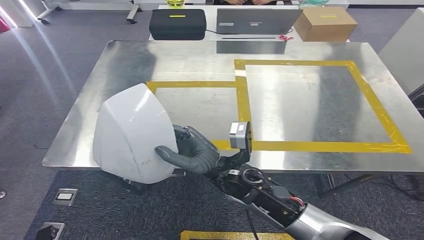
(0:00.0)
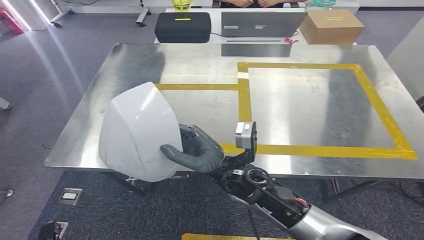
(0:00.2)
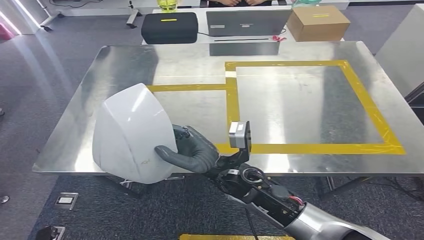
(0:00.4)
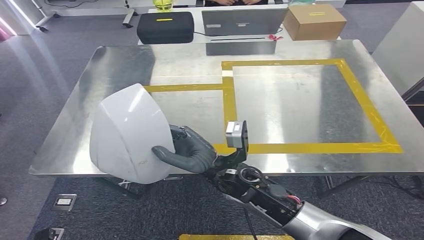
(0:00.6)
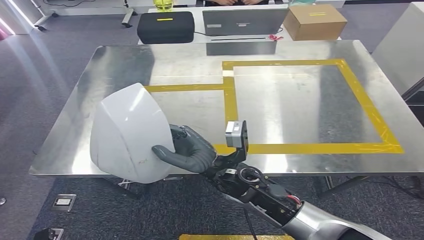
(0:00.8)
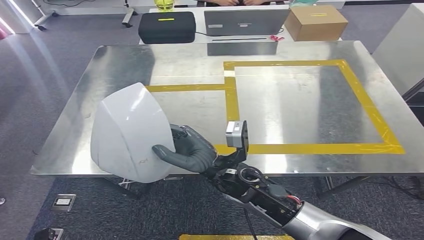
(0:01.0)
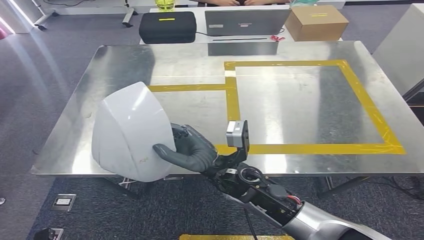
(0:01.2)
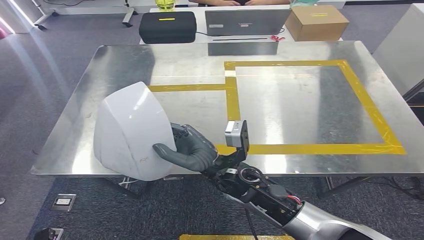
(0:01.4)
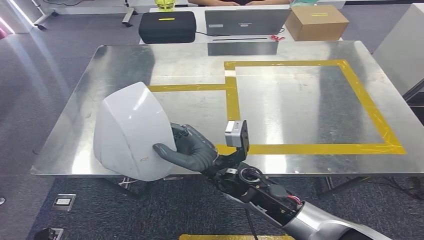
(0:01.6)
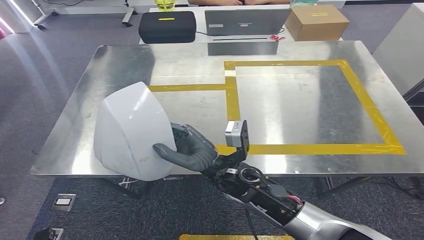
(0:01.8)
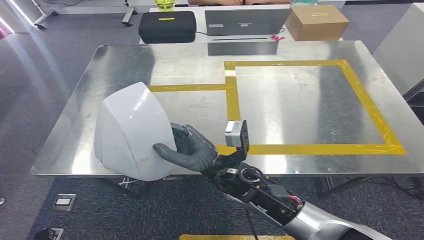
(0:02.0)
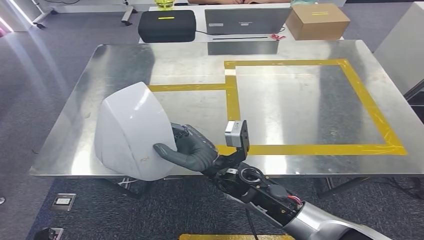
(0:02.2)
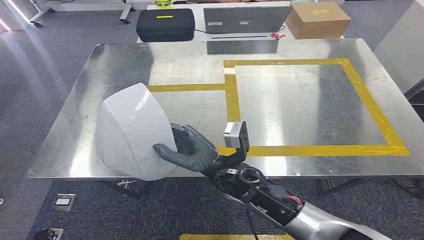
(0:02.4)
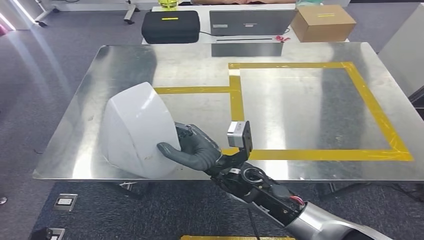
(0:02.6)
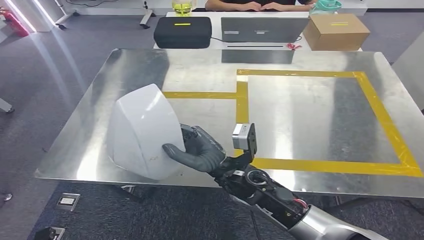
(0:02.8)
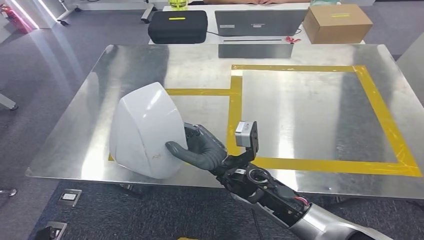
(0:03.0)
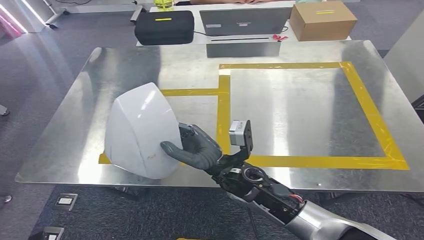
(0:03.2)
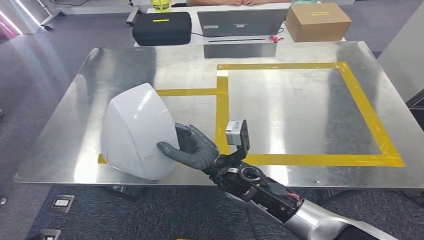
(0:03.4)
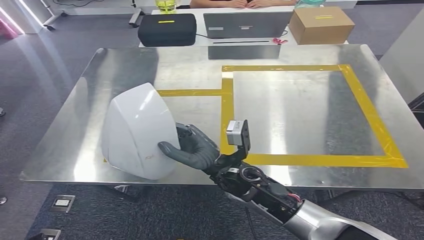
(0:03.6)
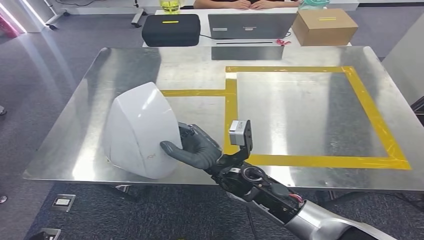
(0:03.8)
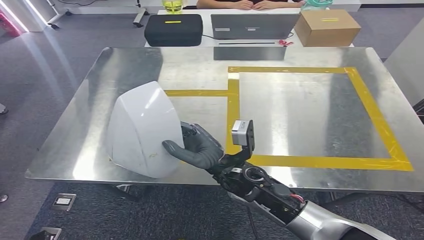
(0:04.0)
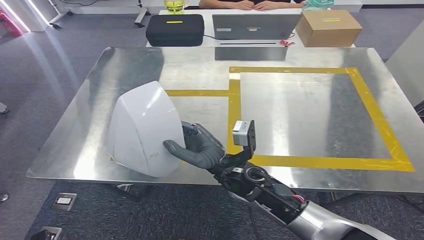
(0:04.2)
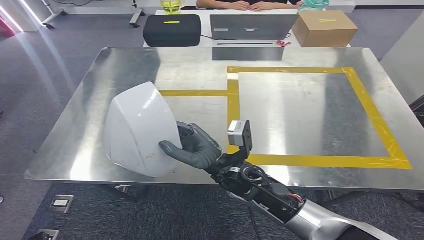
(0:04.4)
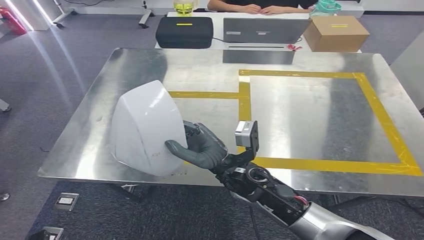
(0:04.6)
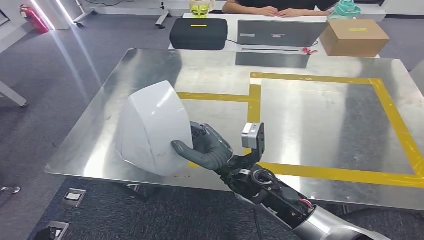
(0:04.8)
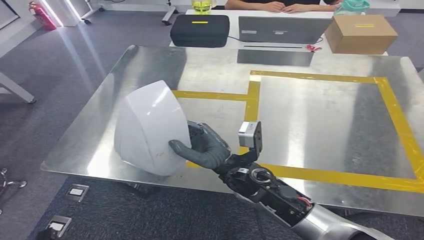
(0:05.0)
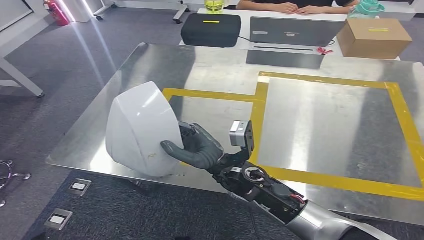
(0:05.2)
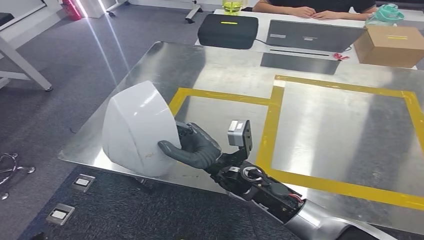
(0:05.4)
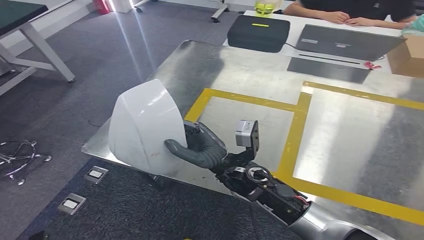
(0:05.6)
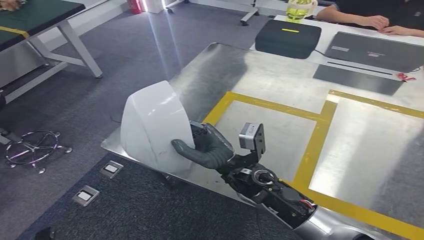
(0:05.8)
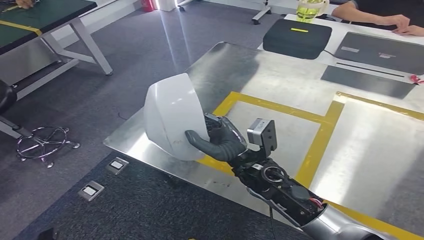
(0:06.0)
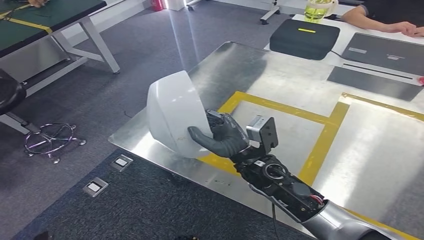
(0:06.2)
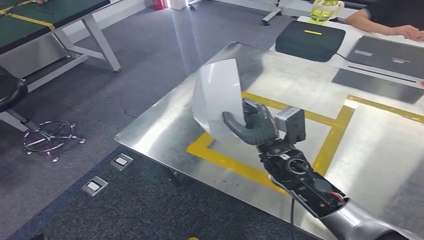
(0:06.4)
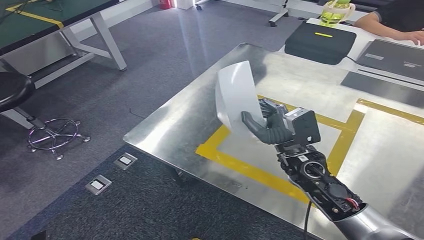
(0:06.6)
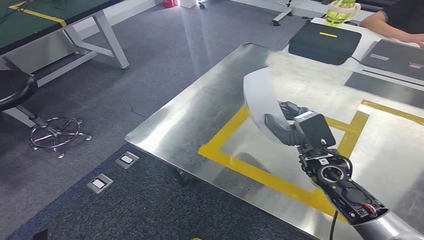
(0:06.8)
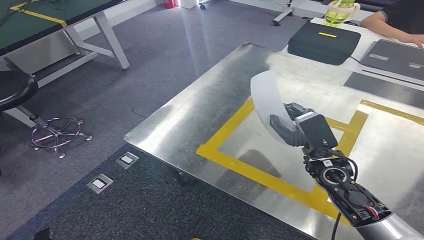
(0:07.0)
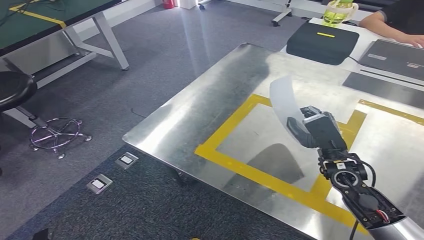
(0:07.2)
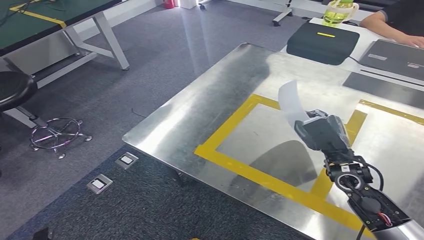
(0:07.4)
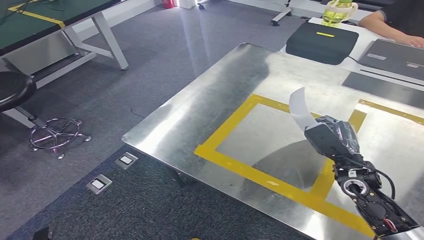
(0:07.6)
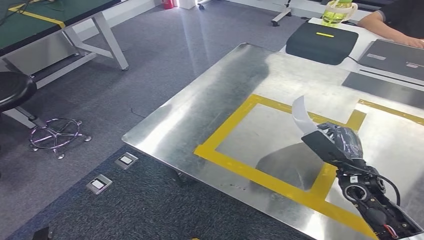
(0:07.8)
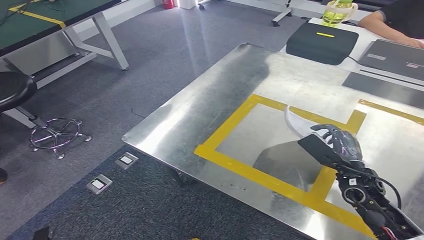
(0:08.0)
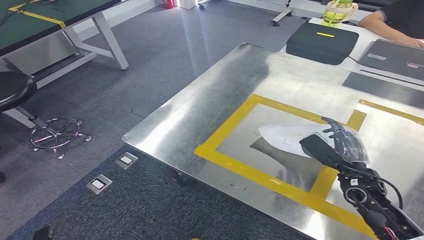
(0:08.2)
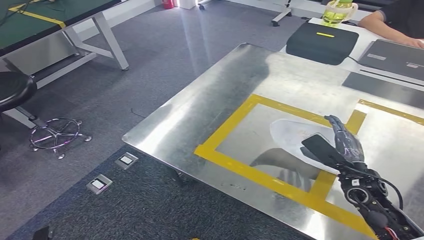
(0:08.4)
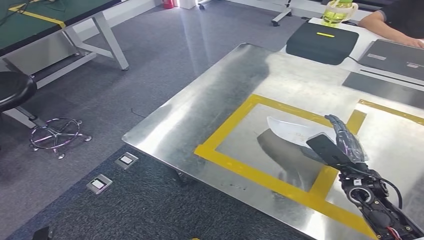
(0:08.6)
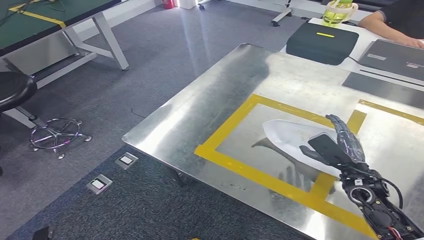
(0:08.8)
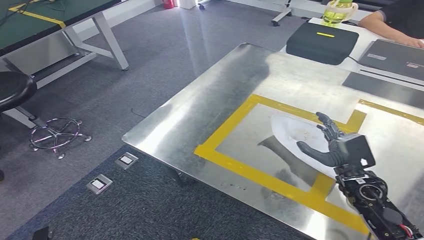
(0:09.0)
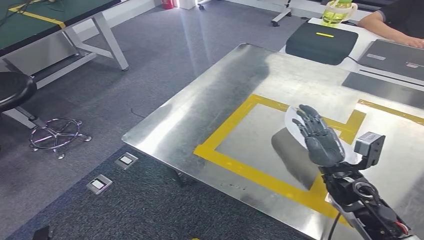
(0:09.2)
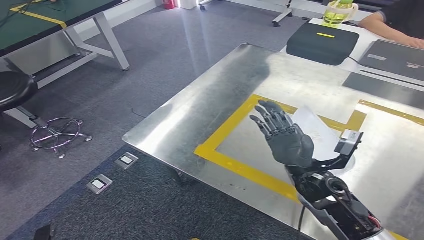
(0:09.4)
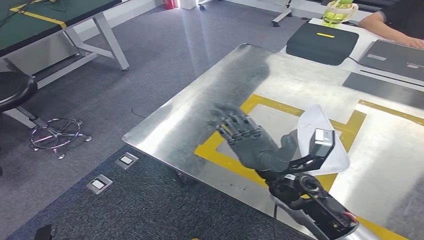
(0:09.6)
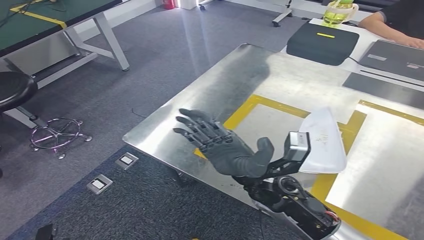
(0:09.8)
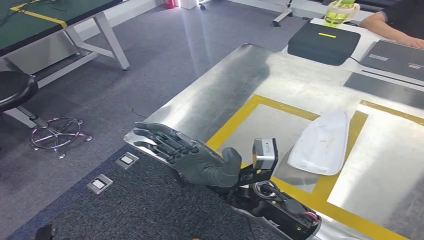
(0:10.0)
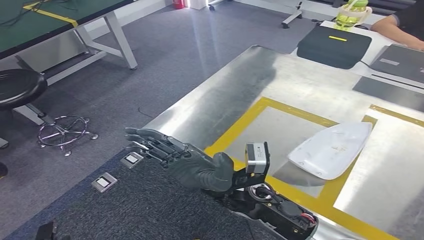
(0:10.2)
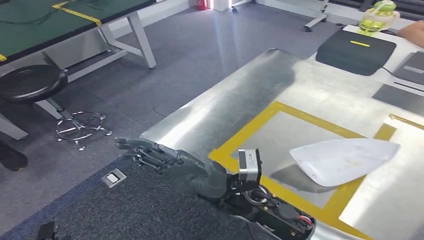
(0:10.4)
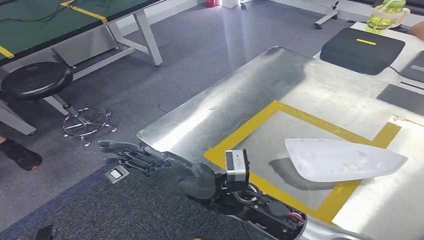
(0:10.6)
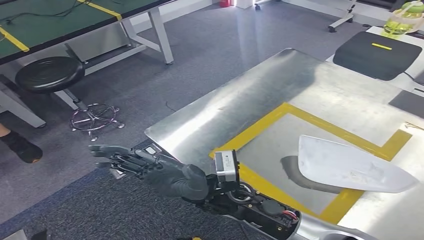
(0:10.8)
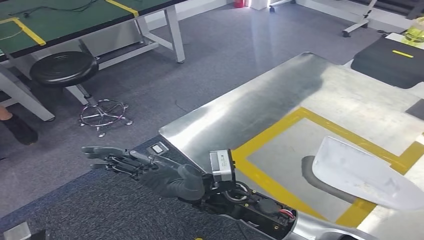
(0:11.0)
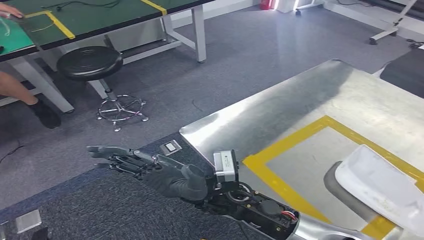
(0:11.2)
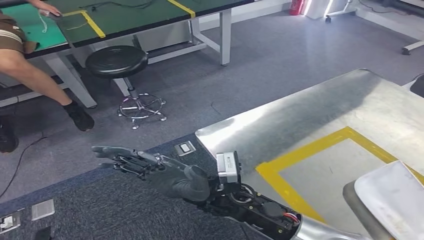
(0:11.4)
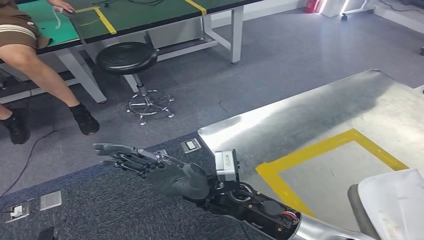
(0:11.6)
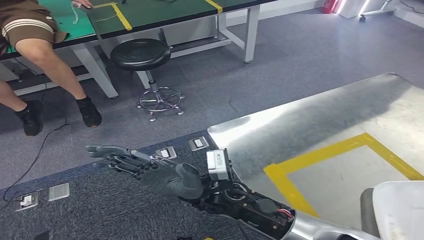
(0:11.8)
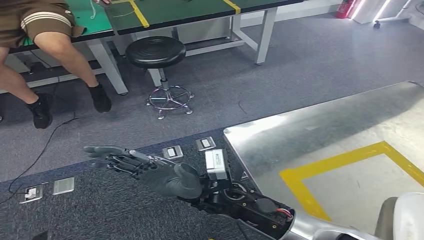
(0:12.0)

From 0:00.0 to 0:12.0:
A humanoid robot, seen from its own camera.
Step, from 0:00.6 to 0:11.0: Insert the small component into the corresponding slot on the workbench.
From 0:00.0 to 0:01.6: The two hands keep their place.

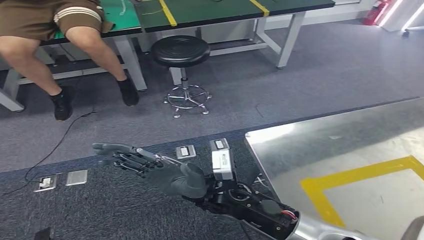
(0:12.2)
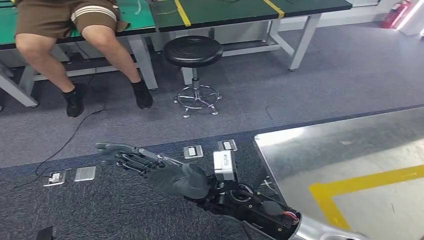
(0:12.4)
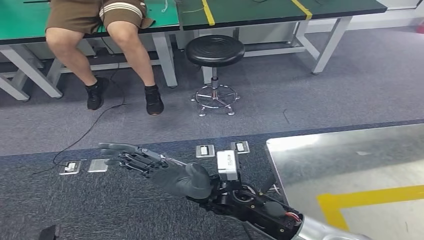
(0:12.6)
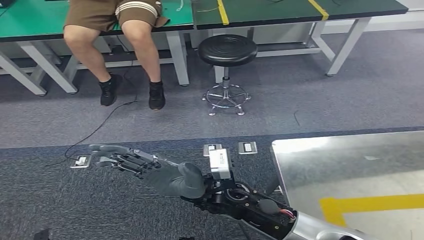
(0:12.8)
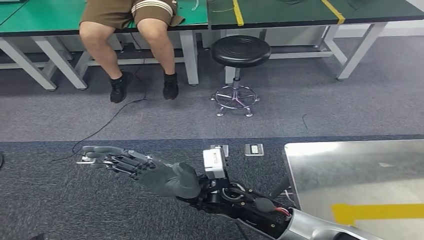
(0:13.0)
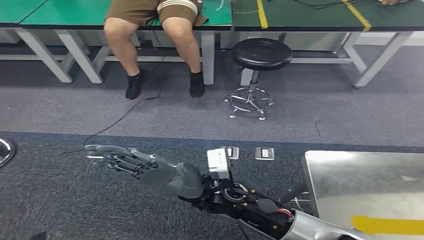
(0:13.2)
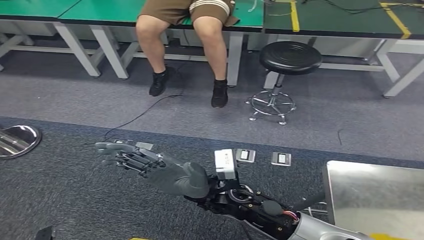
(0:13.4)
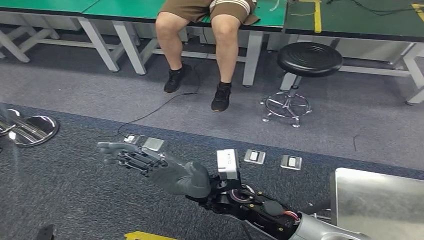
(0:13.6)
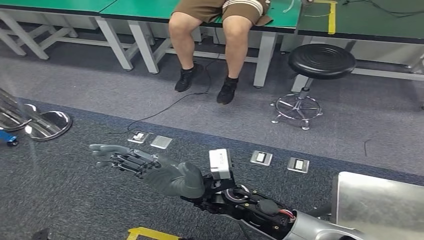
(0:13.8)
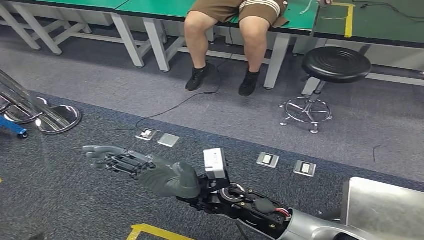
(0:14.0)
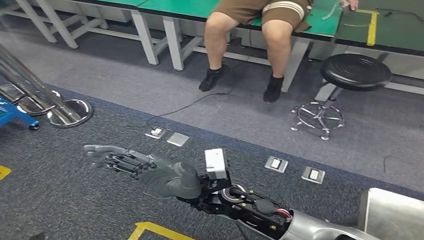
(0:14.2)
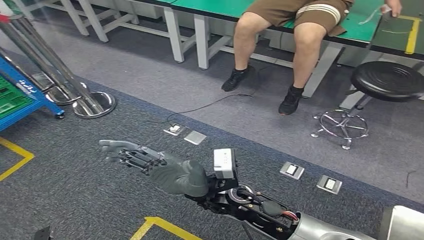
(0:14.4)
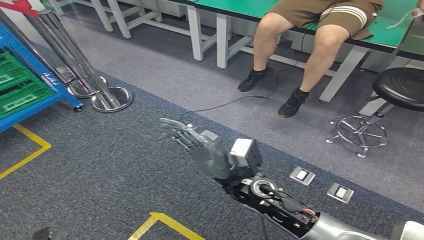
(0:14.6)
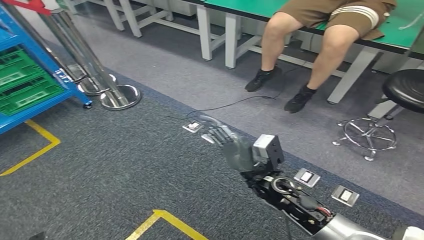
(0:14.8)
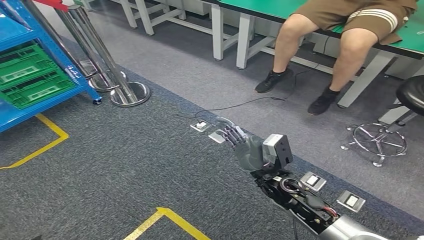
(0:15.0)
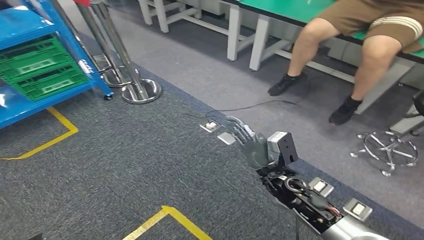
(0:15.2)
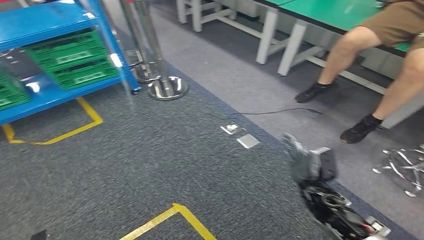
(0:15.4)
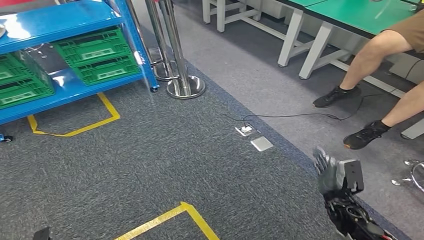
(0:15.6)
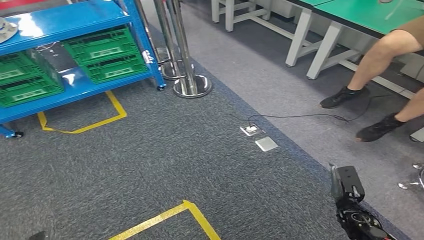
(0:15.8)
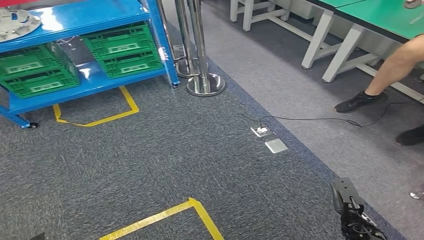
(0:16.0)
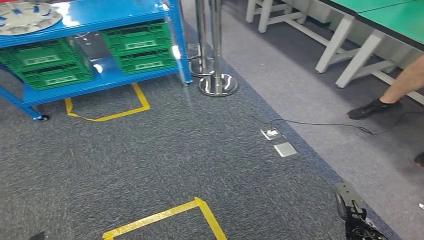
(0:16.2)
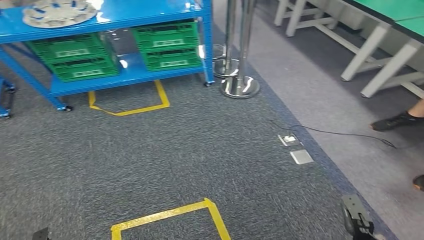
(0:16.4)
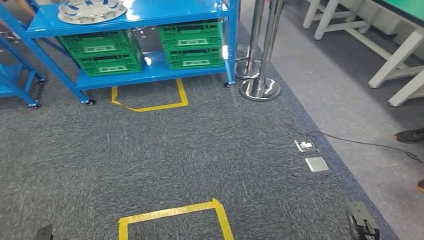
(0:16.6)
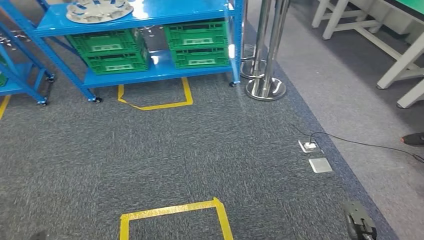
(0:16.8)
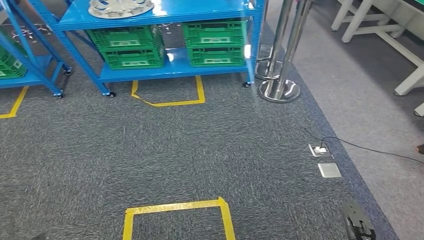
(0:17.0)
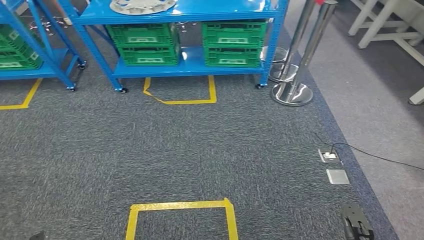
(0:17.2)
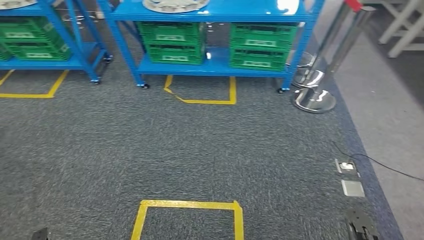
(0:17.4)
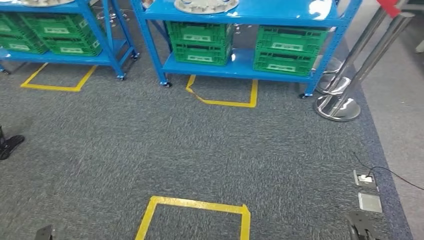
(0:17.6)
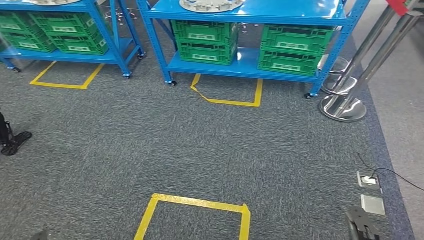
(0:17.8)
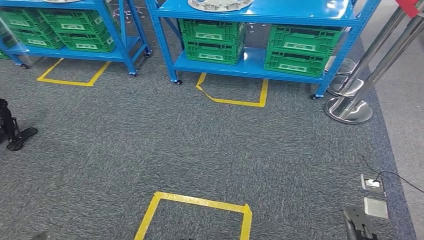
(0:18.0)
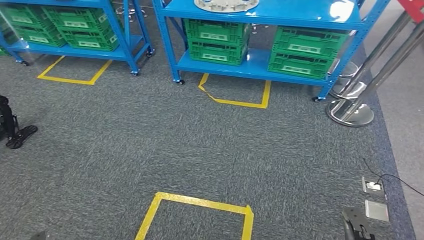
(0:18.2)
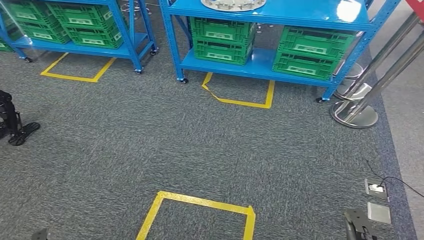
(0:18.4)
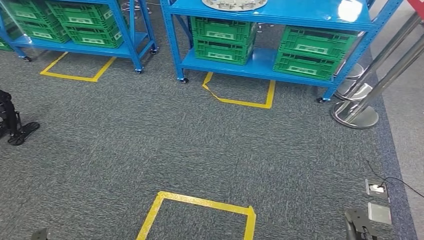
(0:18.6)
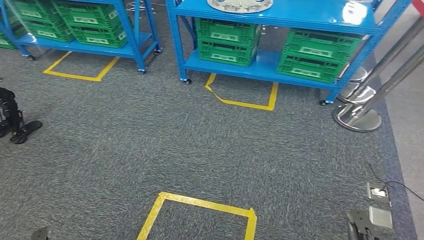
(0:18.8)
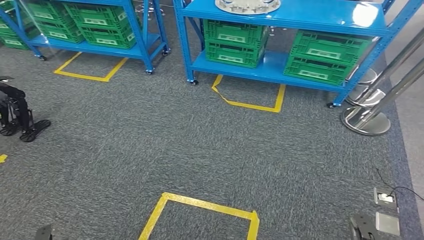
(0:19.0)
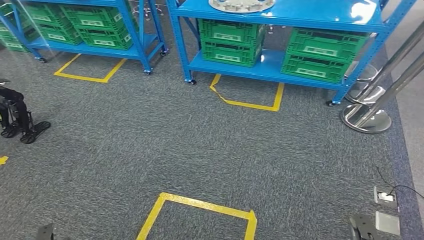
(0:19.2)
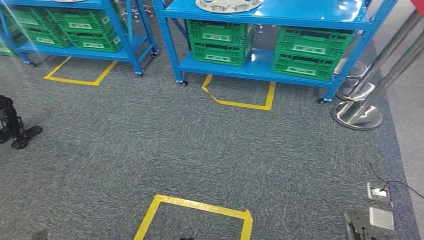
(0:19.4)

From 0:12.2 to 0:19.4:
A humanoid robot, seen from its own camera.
From 0:18.0 to 0:19.4: Neither hand changes place.
